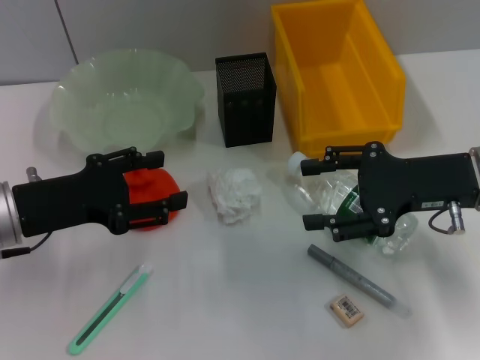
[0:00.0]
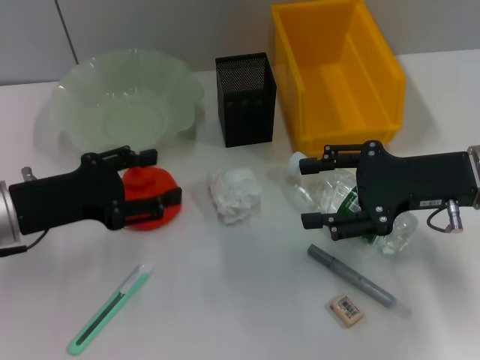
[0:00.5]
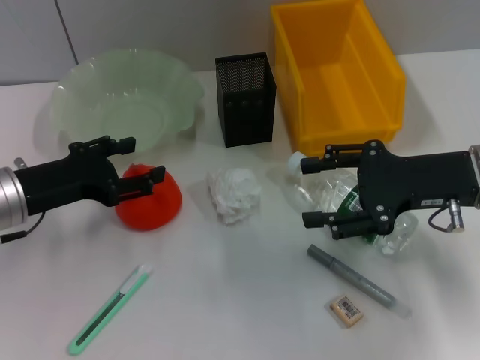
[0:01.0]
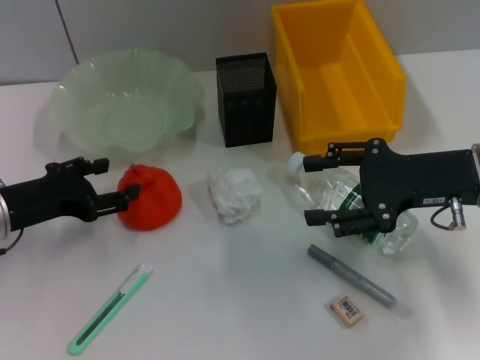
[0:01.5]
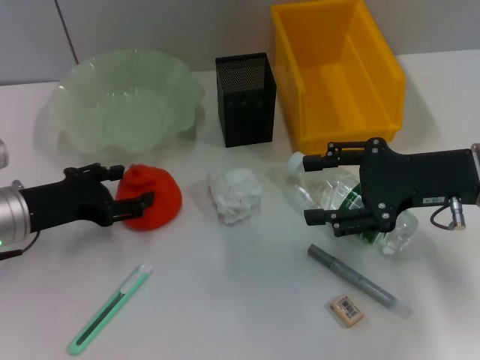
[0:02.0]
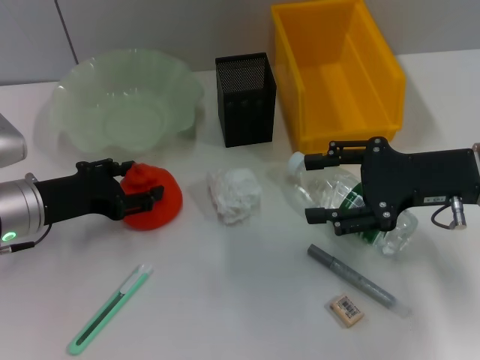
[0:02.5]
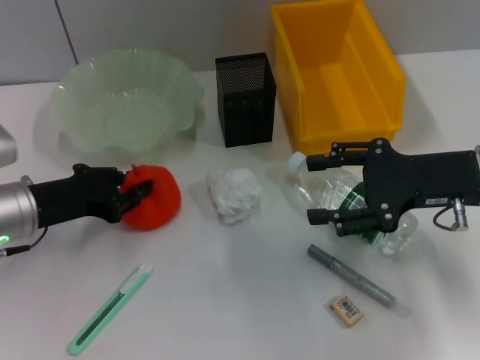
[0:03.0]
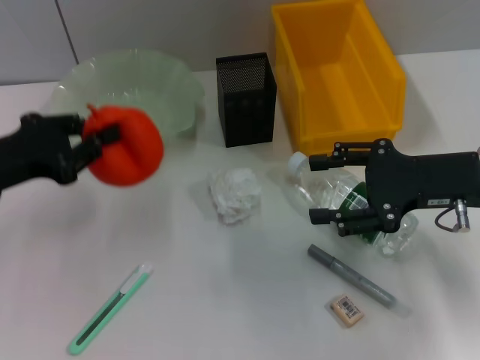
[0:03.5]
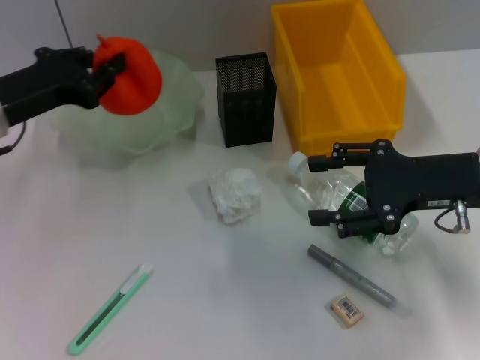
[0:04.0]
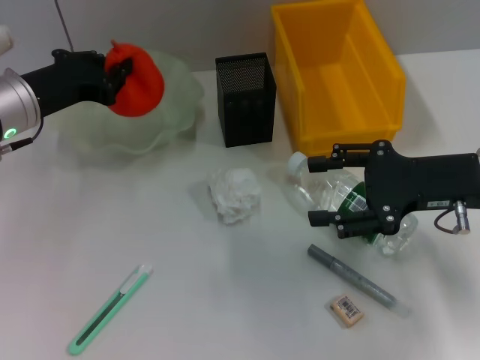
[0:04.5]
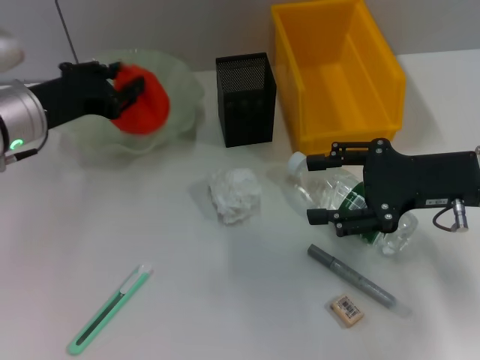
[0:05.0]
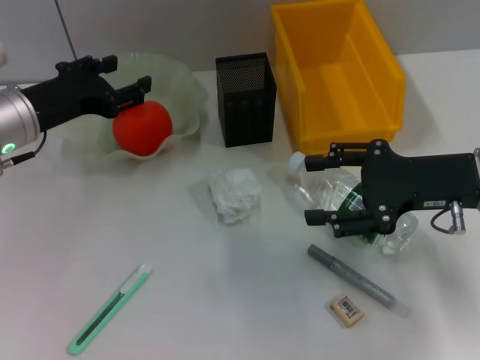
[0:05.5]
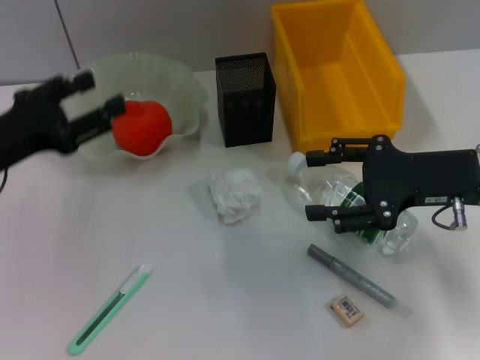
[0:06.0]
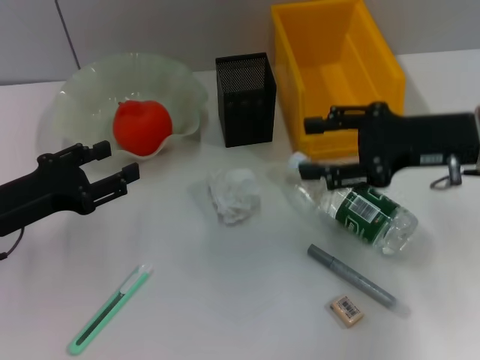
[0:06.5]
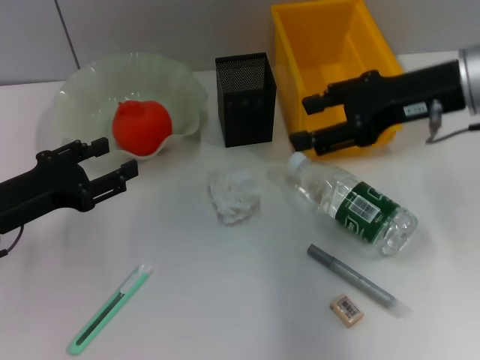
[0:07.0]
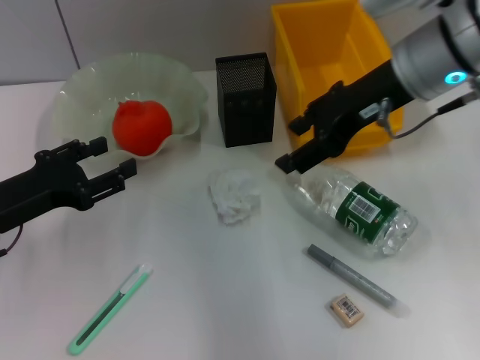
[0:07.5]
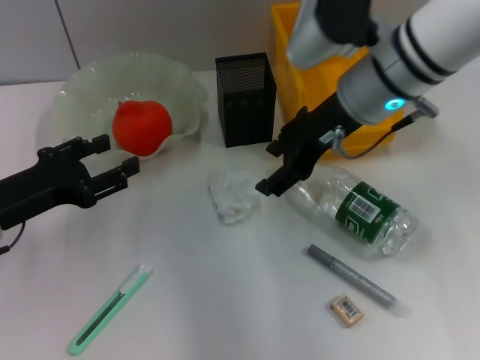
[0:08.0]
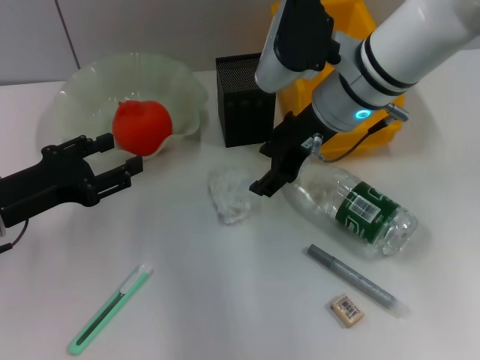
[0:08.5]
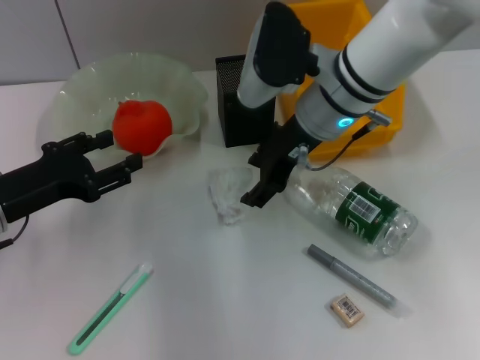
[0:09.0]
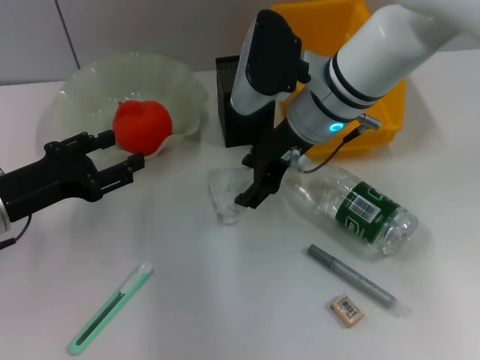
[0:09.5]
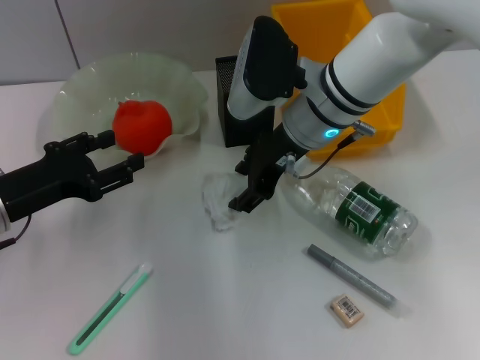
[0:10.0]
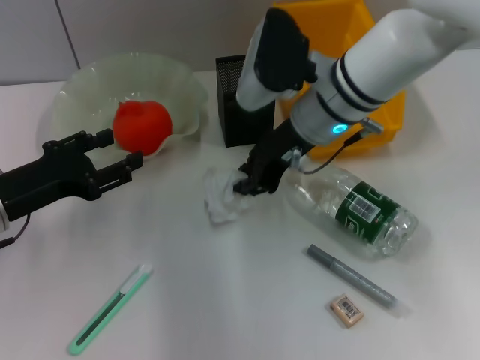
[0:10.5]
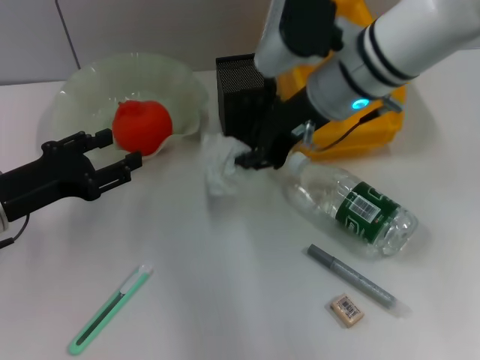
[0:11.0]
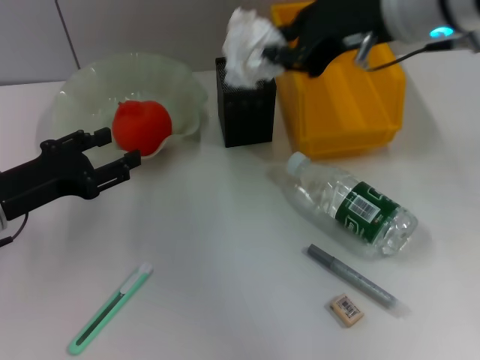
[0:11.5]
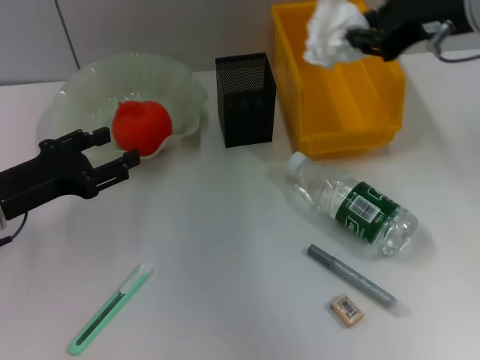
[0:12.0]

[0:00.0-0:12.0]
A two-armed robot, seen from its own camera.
Step, 0:00.0 to 0:02.5: Grab the orange with the left hand.
Step, 0:03.0 to 0:05.5: Place the orange into the fruit bowl with the left hand.
Step, 0:06.5 to 0:10.0: Grab the paper ball with the right hand.
0:02.0 to 0:04.0: The left gripper travels upward by about 5 cm, and closes.
0:04.0 to 0:06.0: The left gripper heads backward, covering roughly 5 cm, and opens.
0:06.0 to 0:08.0: The right gripper travels to the left, forward and upward by about 15 cm.
0:08.0 to 0:10.0: The right gripper ends up about 5 cm from where it was.
0:10.0 to 0:12.0: The right gripper shifts roughly 20 cm to the right and upward, and closes.

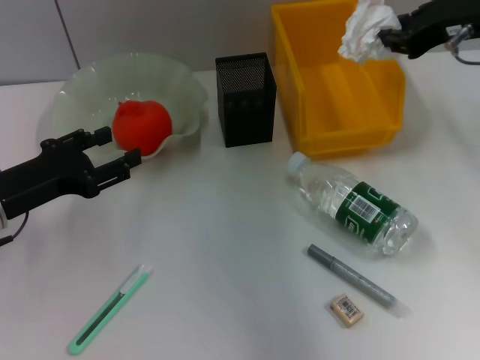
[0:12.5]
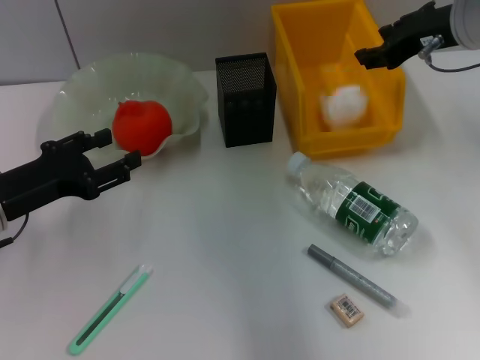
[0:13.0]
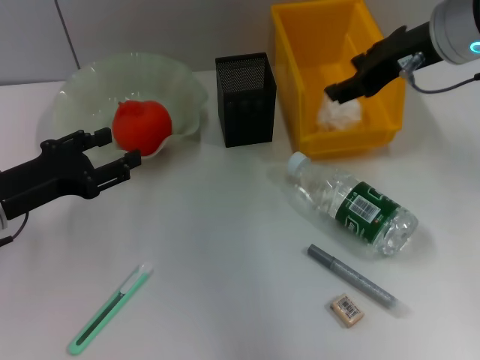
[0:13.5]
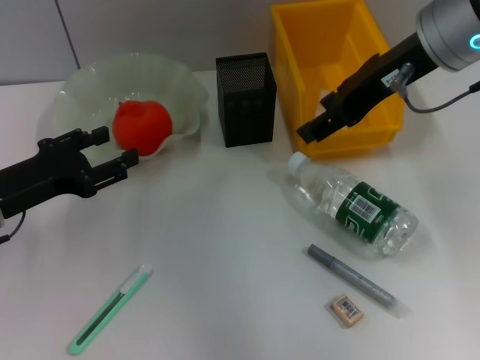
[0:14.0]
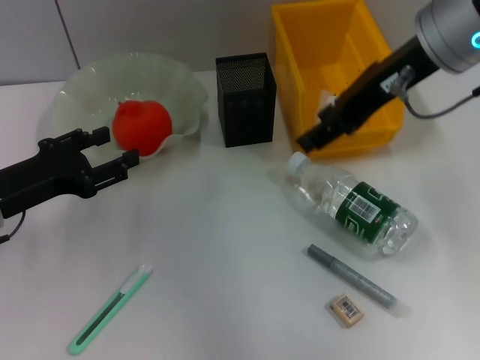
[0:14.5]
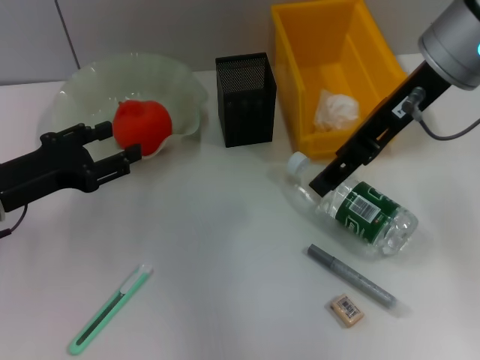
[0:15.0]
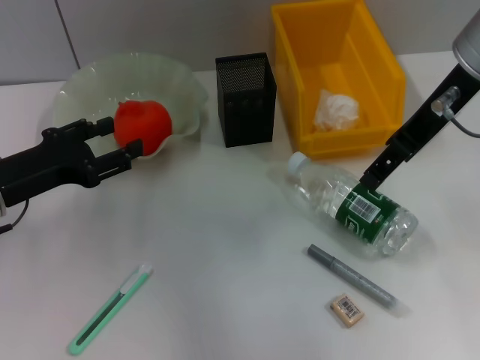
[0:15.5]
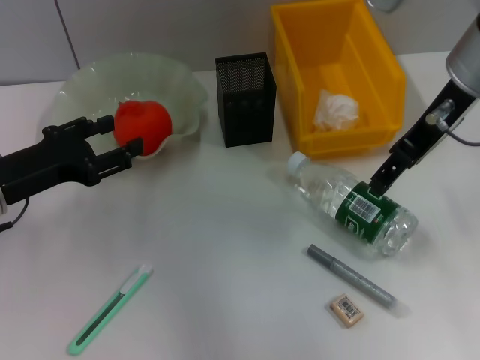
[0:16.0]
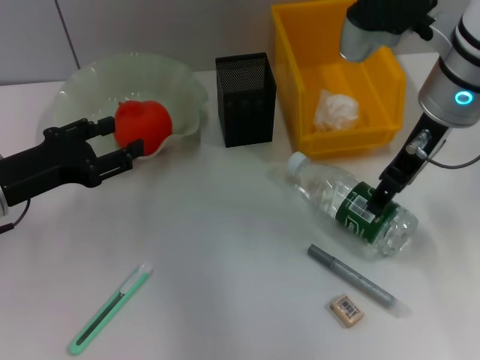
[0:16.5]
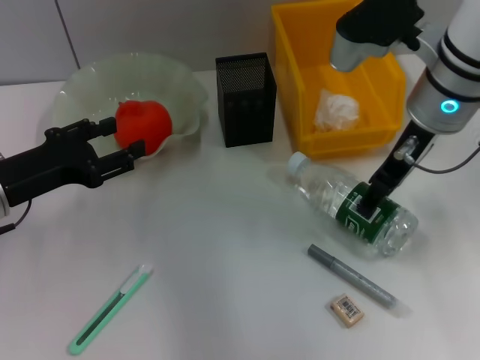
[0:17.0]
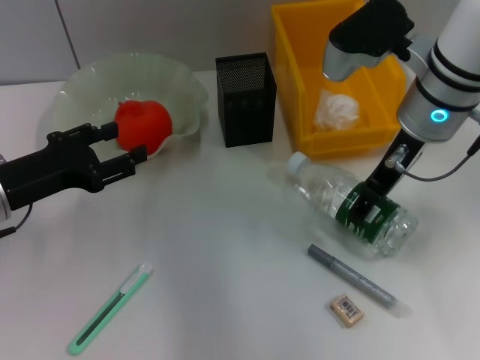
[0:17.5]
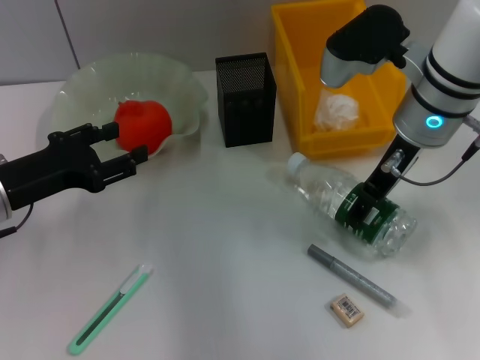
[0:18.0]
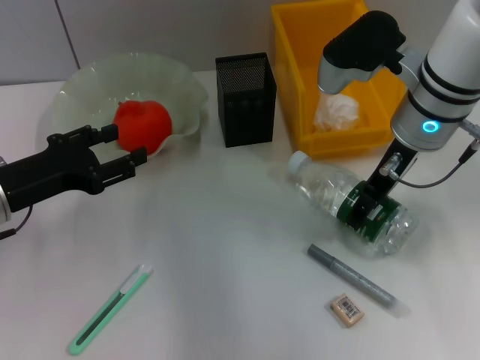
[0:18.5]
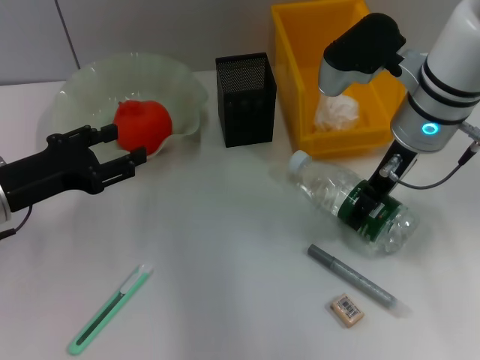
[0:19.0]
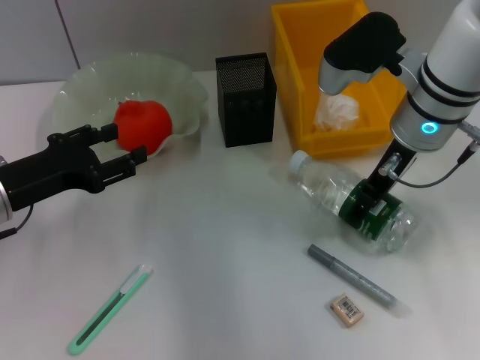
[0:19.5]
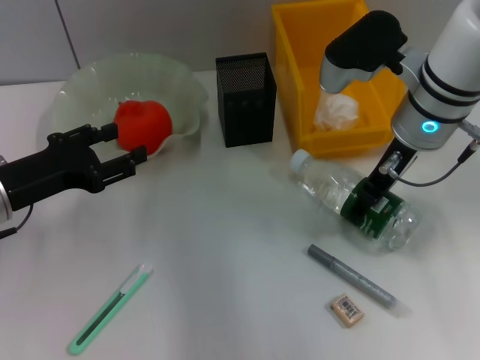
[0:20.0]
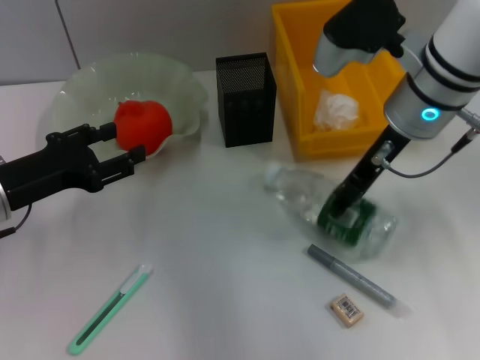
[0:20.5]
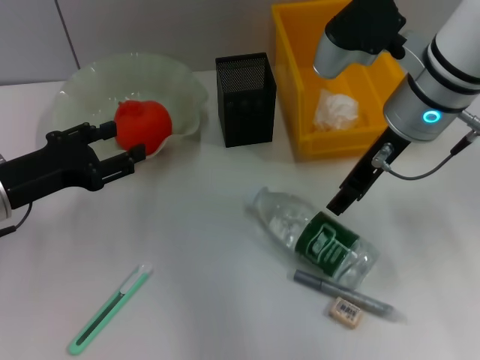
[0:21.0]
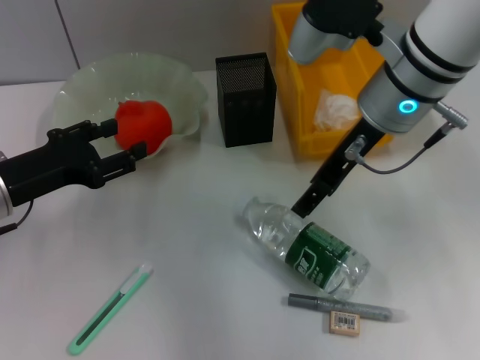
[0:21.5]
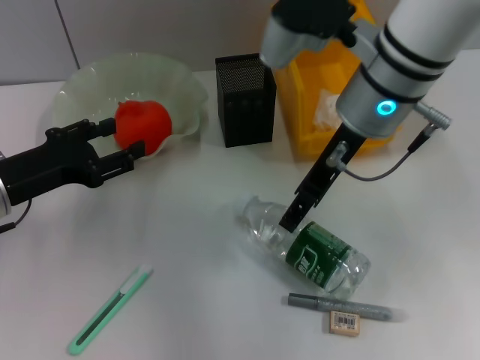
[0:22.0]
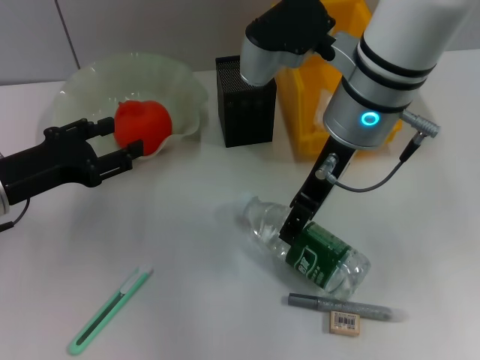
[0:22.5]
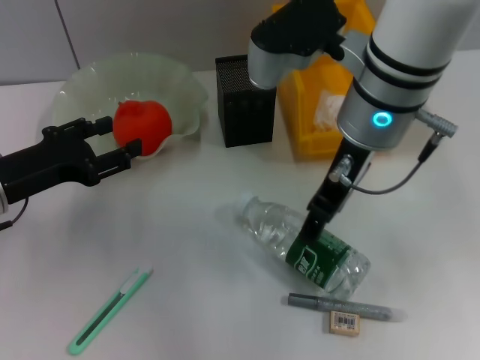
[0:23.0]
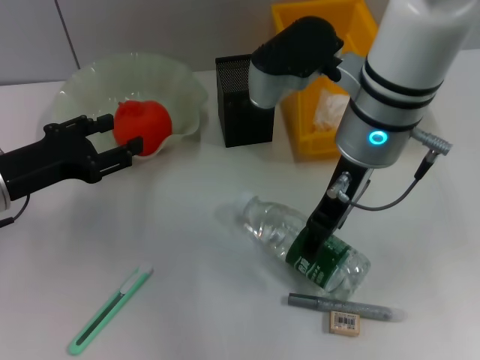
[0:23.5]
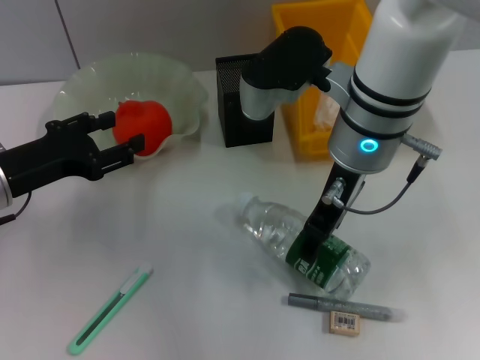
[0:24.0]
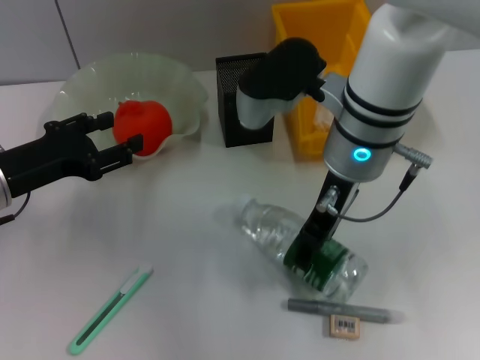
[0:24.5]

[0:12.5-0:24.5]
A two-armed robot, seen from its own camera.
0:12.5 to 0:14.5: The right gripper heads to the left, covering roughly 5 cm, and opens up.
0:14.5 to 0:16.5: The right gripper heads downward, covering about 5 cm.
0:16.5 to 0:20.5: There are only small adjustments of the grippers.
0:20.5 to 0:22.5: The right gripper is displaced to the left by roughly 5 cm.
0:22.5 to 0:24.5: There are only small adjustments of the grippers.

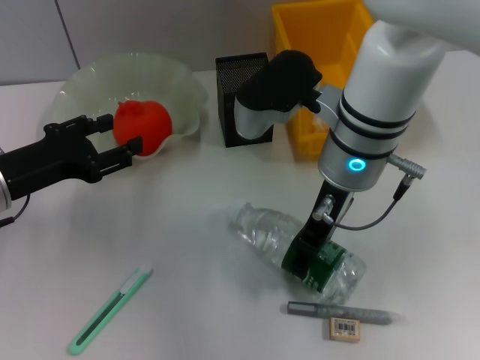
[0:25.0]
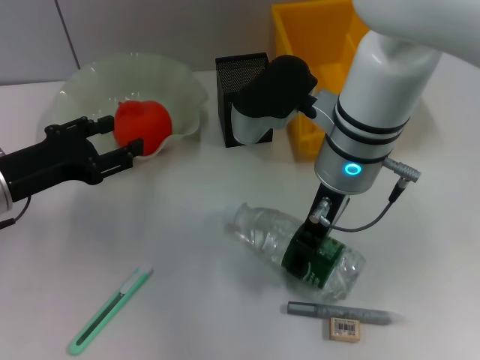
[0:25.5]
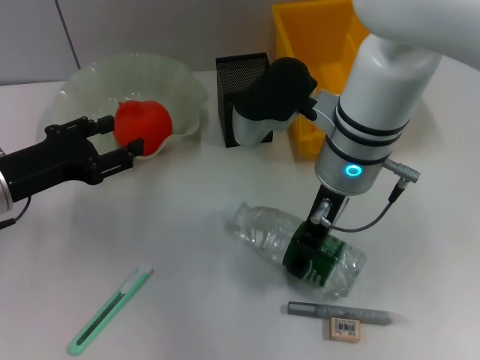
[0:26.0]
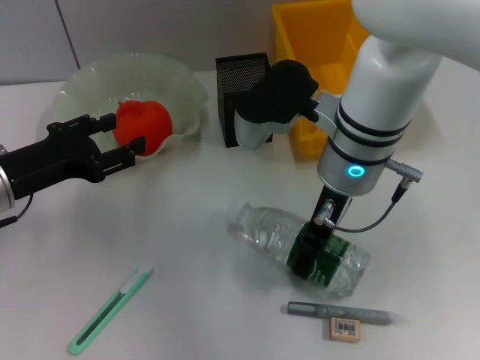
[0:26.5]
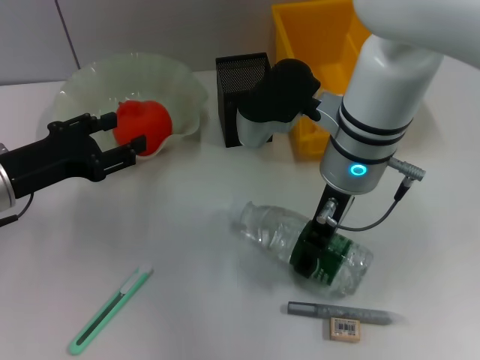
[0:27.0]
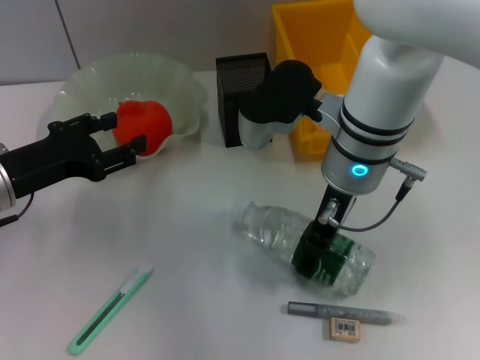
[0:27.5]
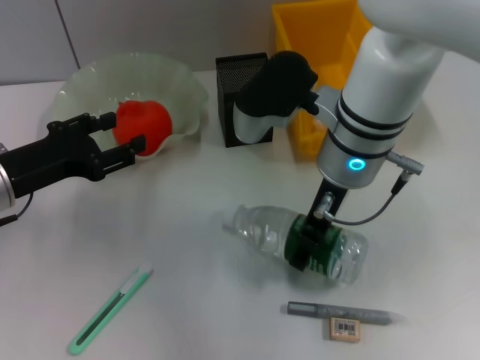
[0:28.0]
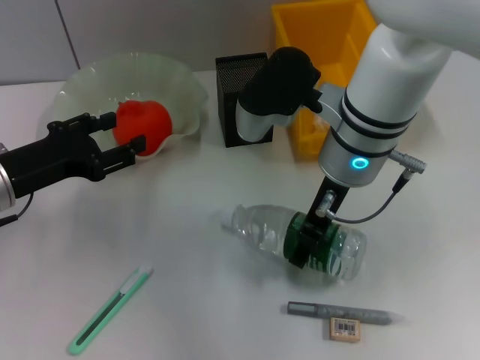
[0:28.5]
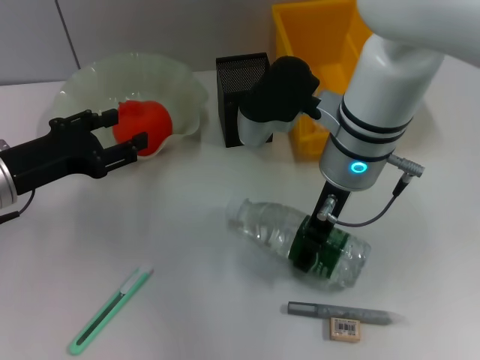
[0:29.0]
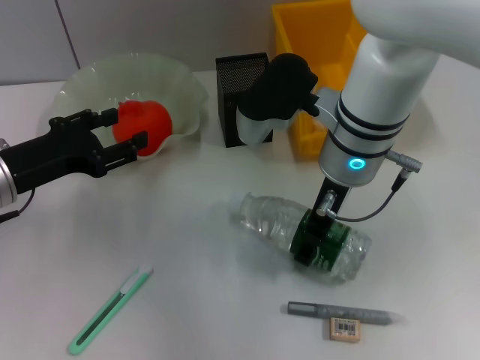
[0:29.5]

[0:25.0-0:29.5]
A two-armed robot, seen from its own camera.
0:25.0 to 0:27.0: Both grippers stay put.
0:27.0 to 0:29.5: Both grippers stay about where they are.
